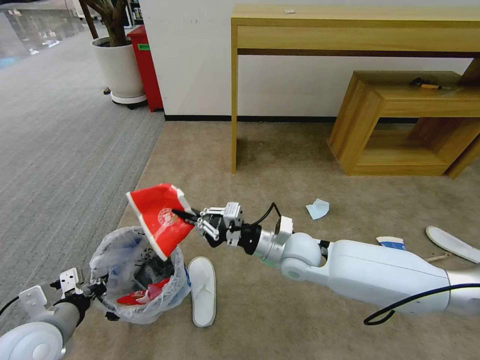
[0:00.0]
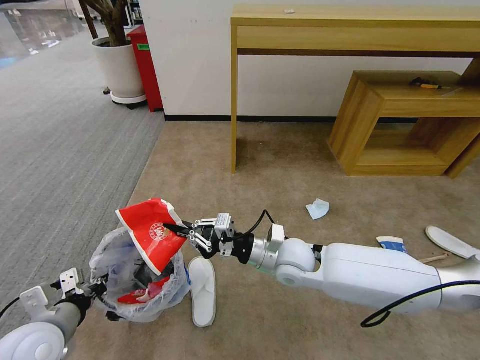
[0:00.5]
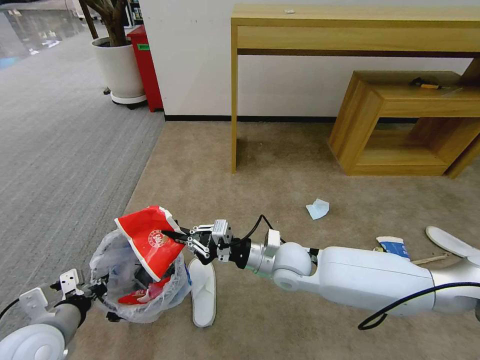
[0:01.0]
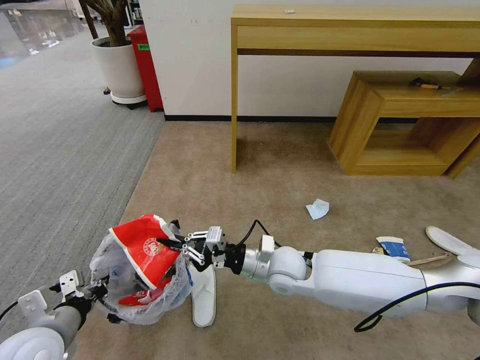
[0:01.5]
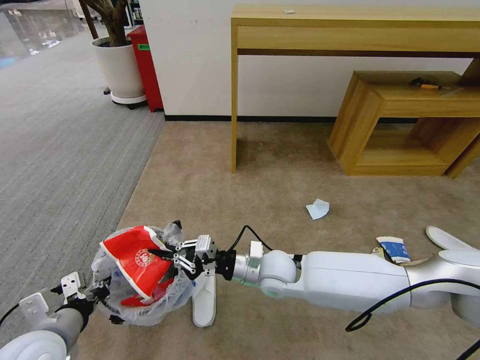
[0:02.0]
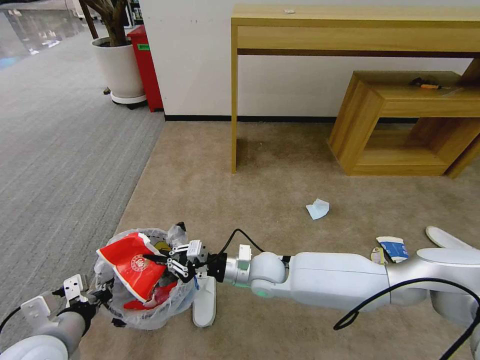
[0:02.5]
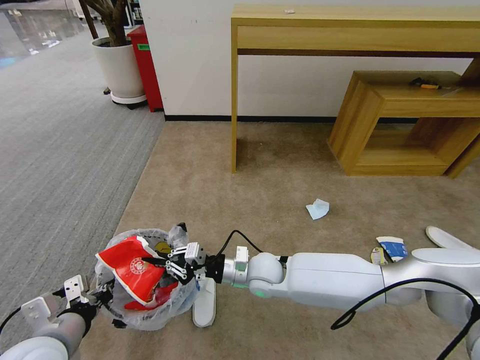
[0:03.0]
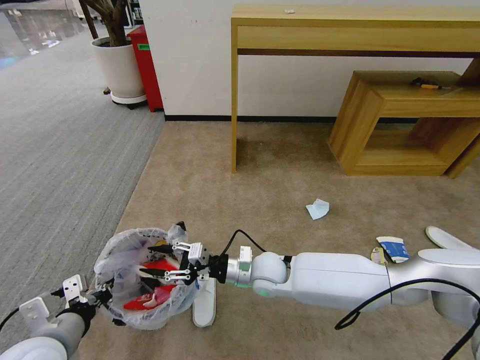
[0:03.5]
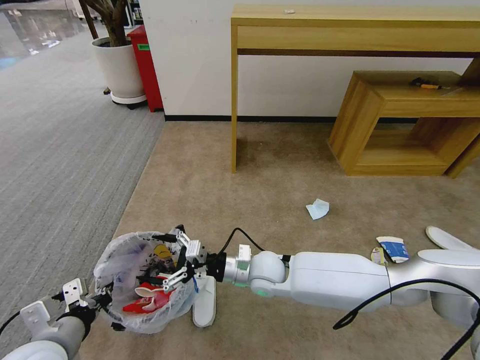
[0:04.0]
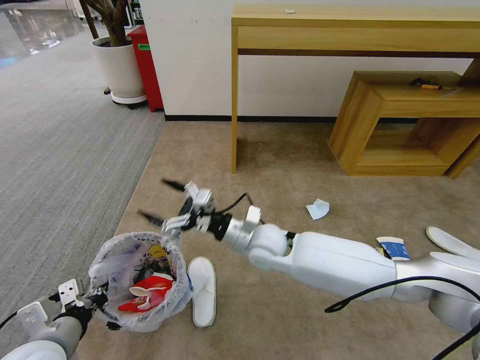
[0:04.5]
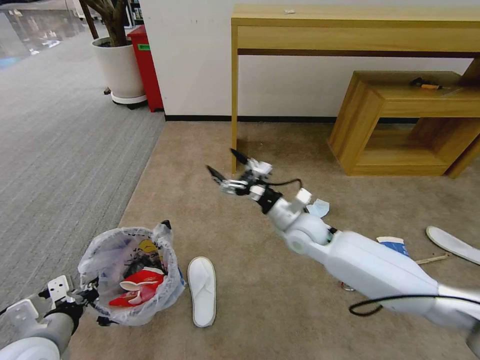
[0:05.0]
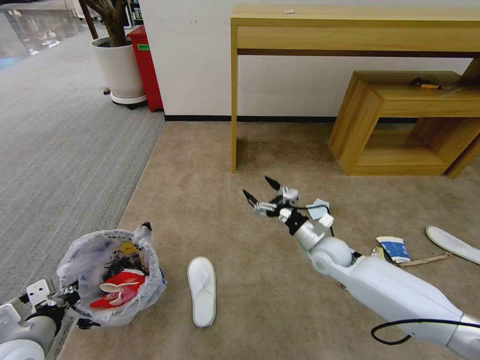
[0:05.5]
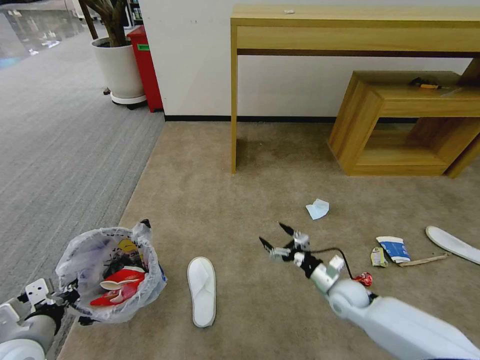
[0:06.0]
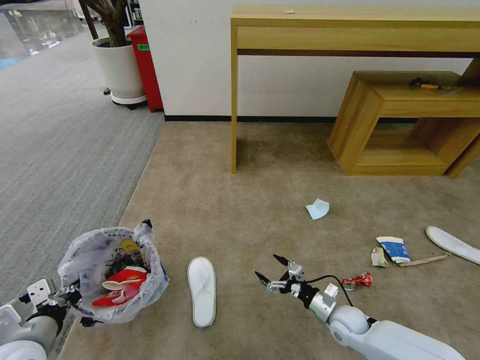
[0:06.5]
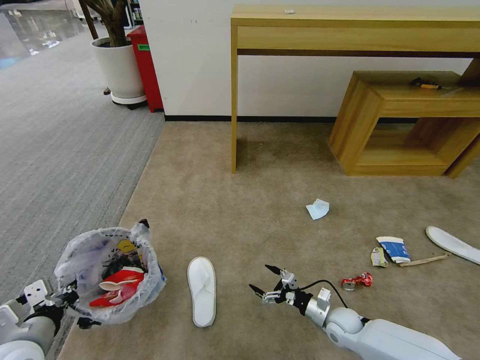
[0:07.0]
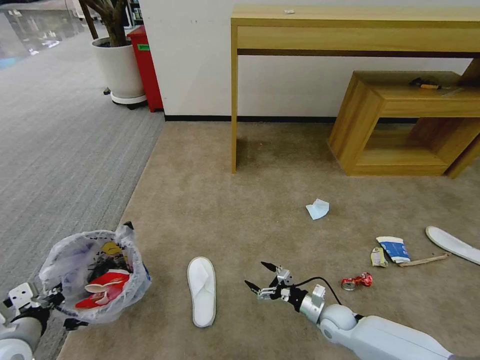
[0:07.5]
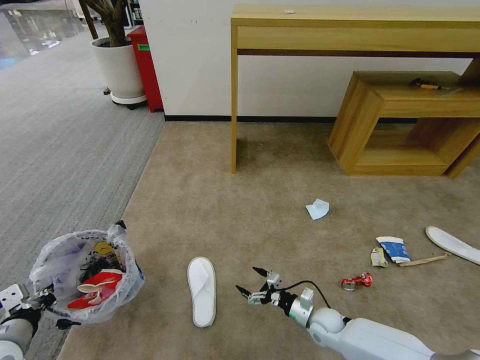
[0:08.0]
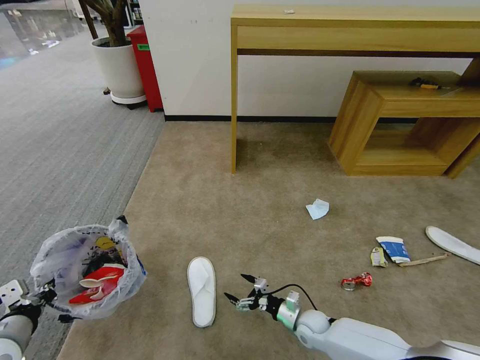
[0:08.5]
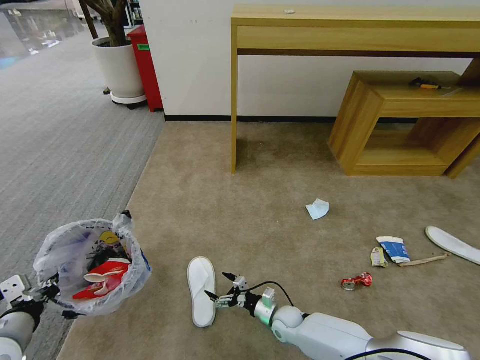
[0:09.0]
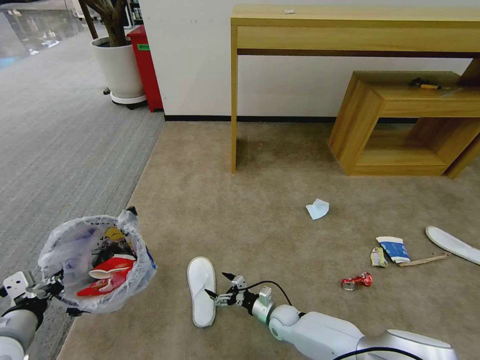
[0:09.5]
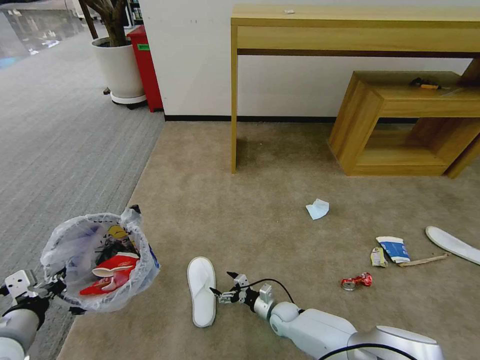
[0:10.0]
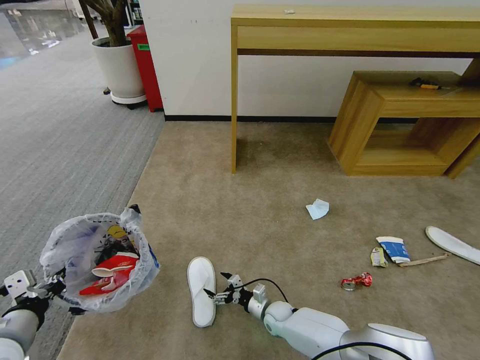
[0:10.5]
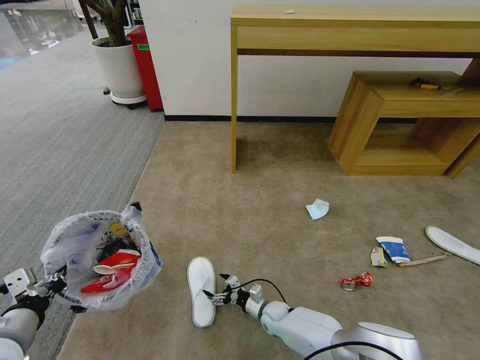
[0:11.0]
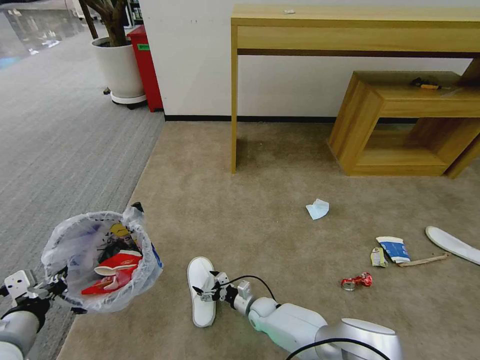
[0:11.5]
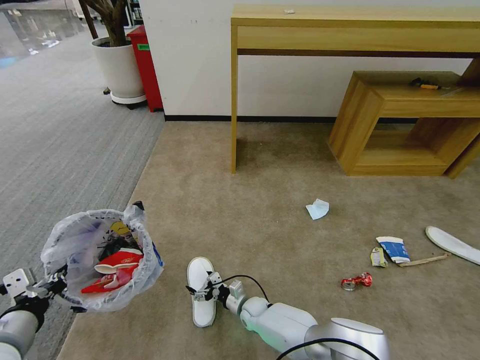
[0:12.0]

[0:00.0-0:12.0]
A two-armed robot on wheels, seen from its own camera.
Task of the whole recording: Pick up the trash bin and place the garbage on the floor into it.
0:00.0 to 0:02.0: The right gripper moves roughly 5 cm.
0:02.0 to 0:04.0: The right gripper opens up.
0:04.0 to 0:06.0: The right gripper goes about 25 cm to the right and downward; the left gripper is displaced to the left by approximately 5 cm.
0:06.0 to 0:08.0: The right gripper moves downward, about 10 cm, while the left gripper changes place by some 5 cm.
0:08.0 to 0:10.0: The left gripper ends up some 5 cm from where it was, while the right gripper moves to the left and downward, about 10 cm.
0:10.0 to 0:12.0: The right gripper is displaced to the left by roughly 10 cm.

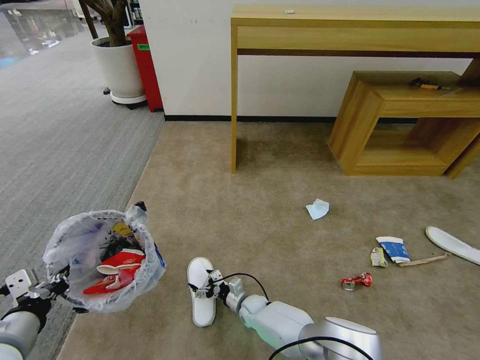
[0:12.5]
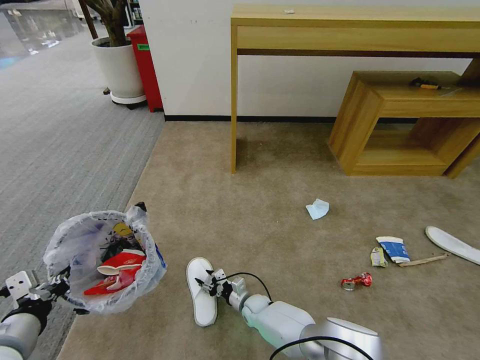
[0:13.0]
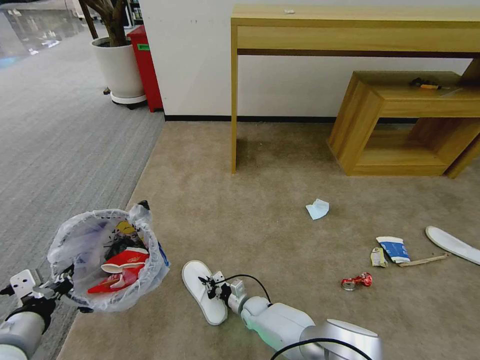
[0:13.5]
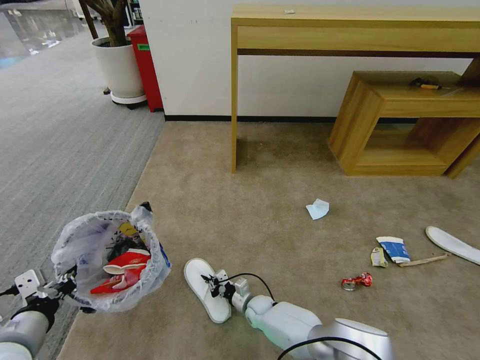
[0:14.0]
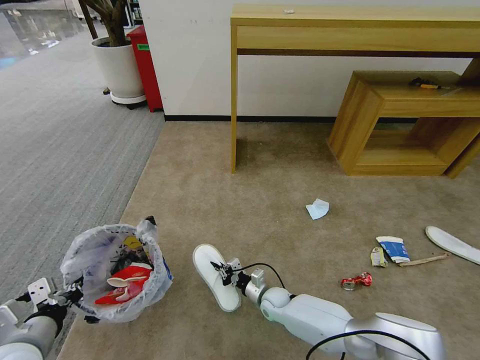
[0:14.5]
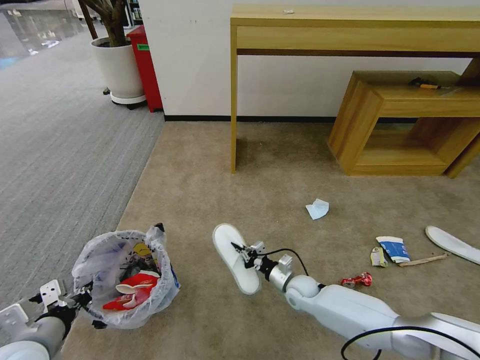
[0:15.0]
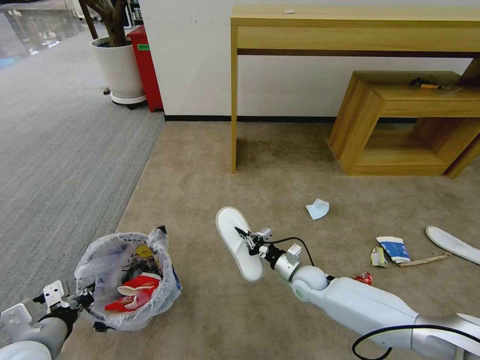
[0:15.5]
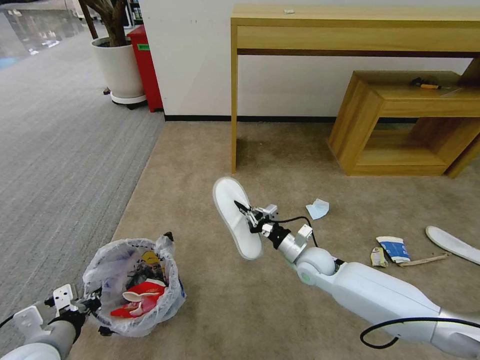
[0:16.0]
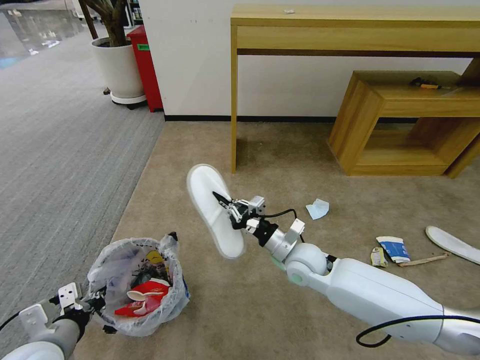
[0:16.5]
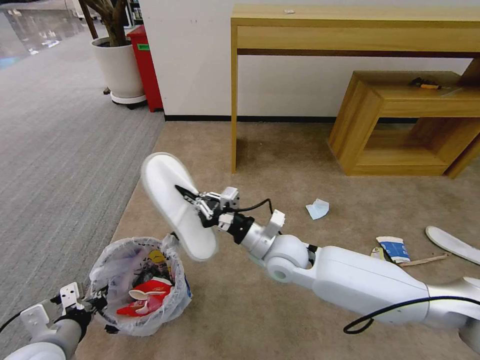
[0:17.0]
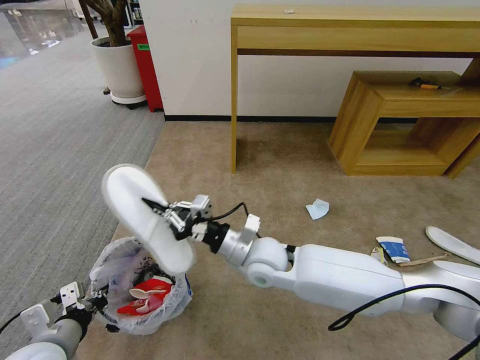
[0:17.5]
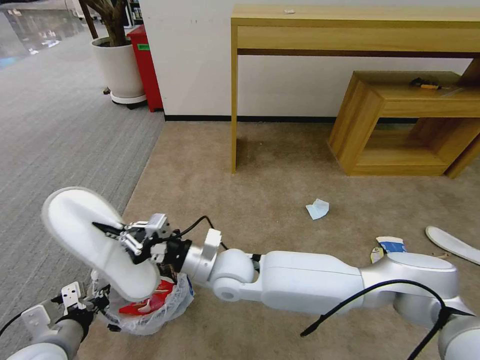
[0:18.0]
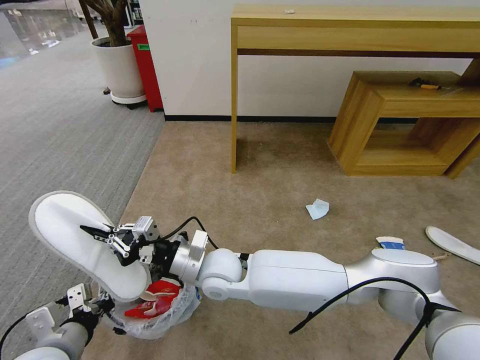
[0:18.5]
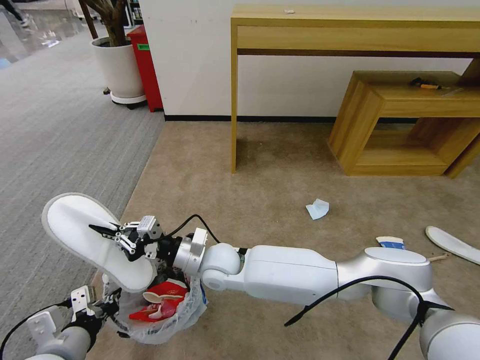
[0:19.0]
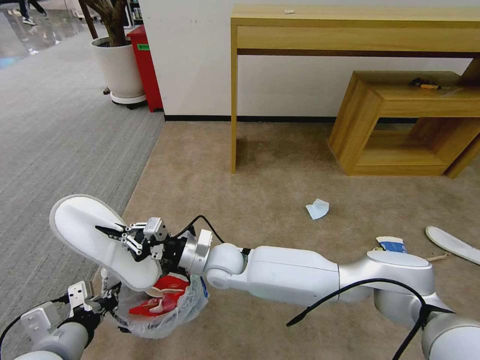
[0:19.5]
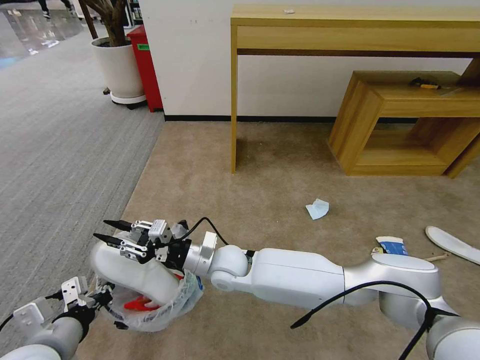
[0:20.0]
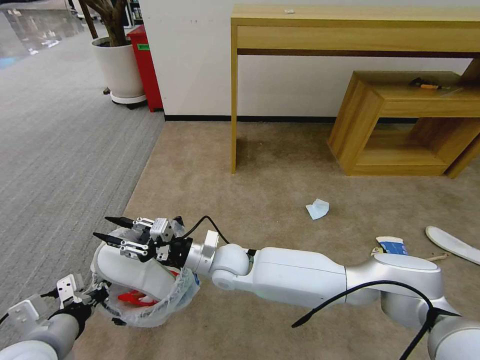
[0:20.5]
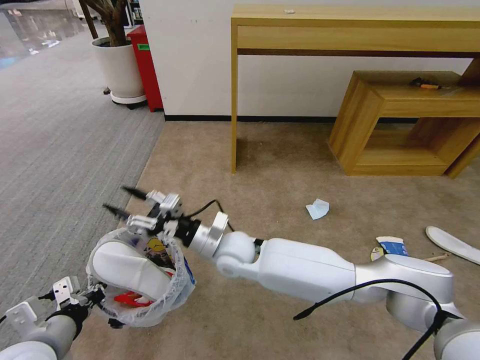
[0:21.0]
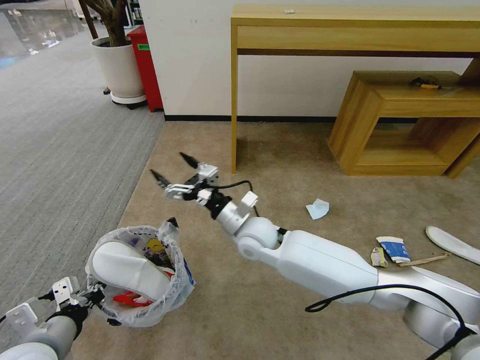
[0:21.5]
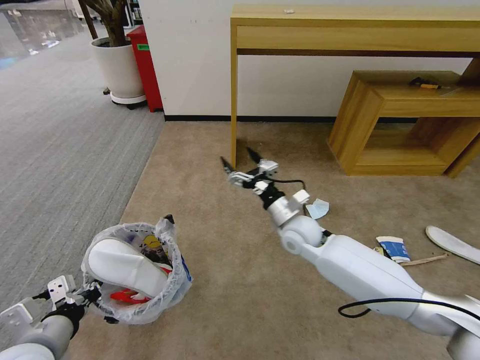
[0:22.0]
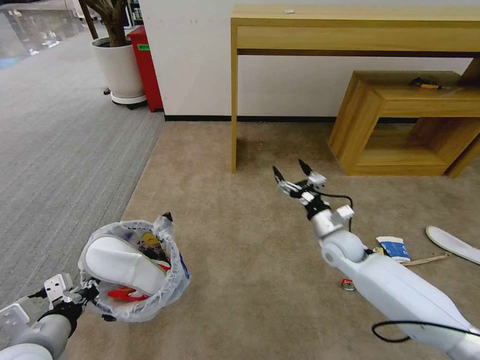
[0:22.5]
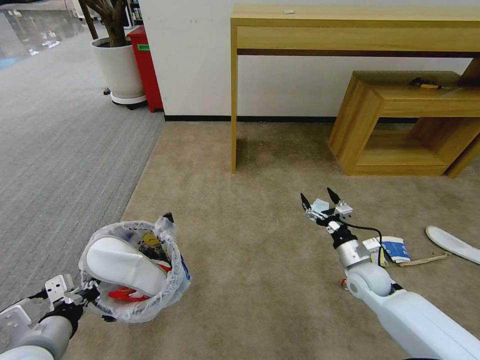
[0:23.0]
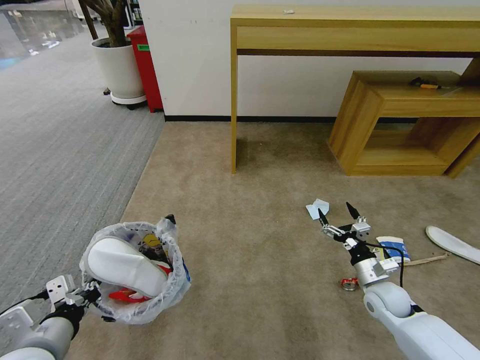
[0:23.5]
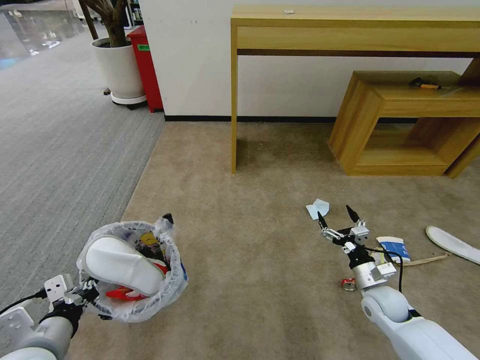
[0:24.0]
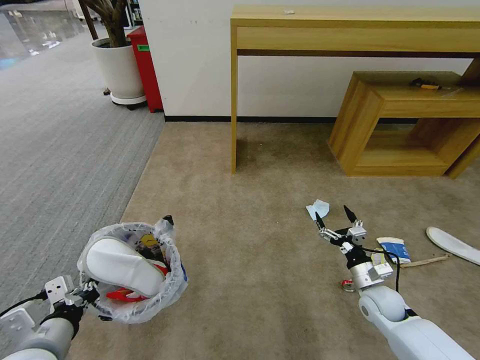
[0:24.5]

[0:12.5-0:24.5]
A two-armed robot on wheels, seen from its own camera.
Task of the whole recording: Pick up the trash bin and place the garbage on the floor into it.
0:12.5 to 0:14.5: The right gripper travels to the right by approximately 5 cm, and closes up.
0:14.5 to 0:16.5: The right gripper moves upward, approximately 25 cm.
0:16.5 to 0:18.5: The right gripper travels to the left by about 20 cm.
0:18.5 to 0:20.5: The right gripper changes place by some 5 cm, and opens up.
0:20.5 to 0:22.5: The right gripper is displaced to the right by roughly 30 cm, and opens its fingers.
0:22.5 to 0:24.5: The right gripper moves backward, downward and to the right, about 15 cm.

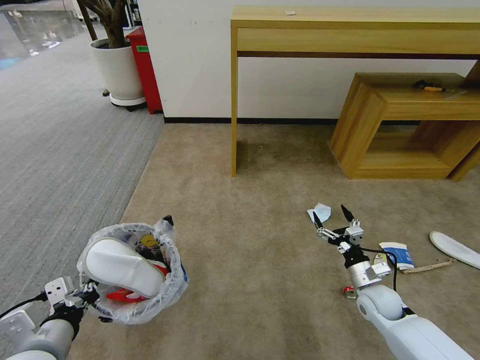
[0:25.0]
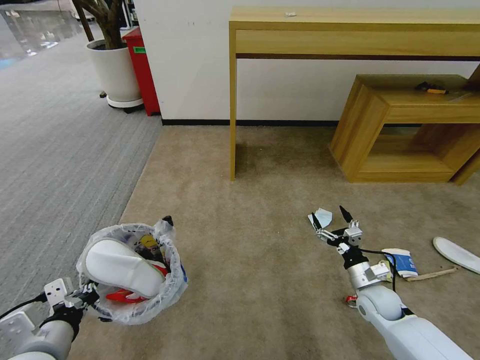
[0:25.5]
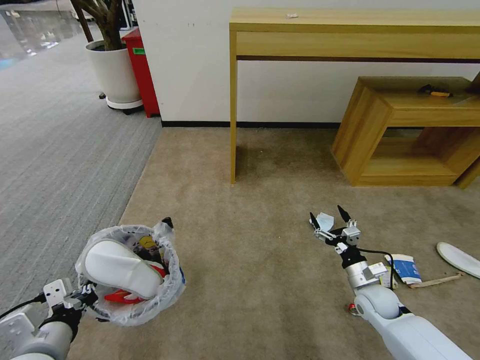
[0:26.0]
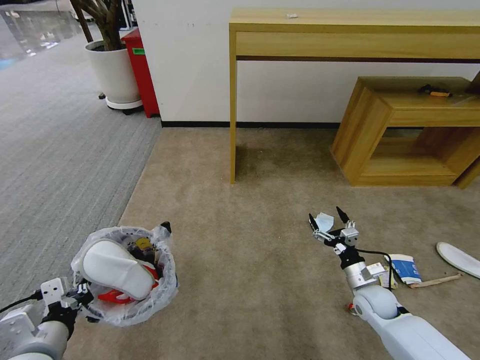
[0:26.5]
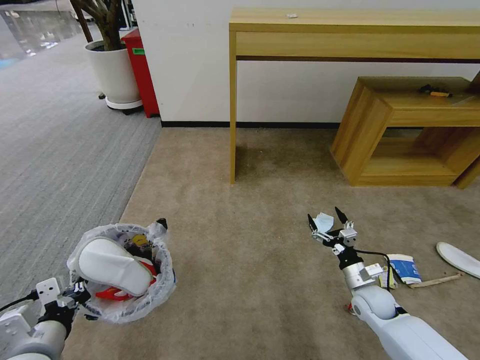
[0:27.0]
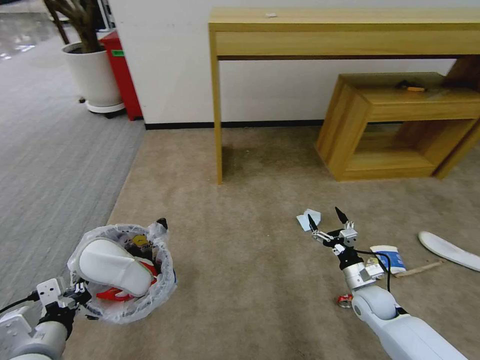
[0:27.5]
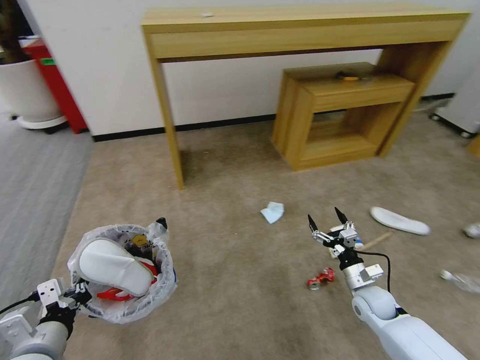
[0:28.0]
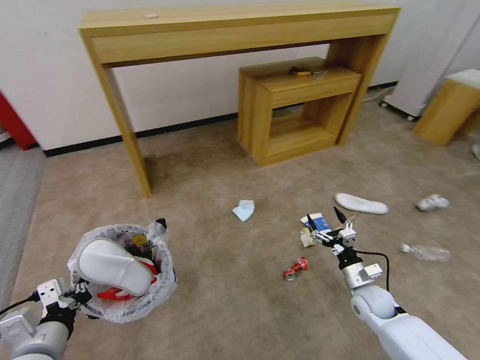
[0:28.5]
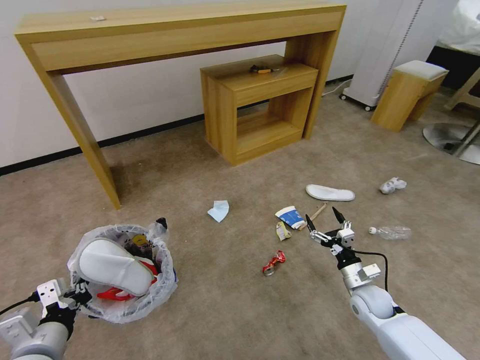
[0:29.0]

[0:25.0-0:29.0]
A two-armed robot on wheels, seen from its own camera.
Task of the whole recording: Pick up the trash bin and place the garbage on the floor into it.
0:25.0 to 0:27.0: The grippers make only small movements.
